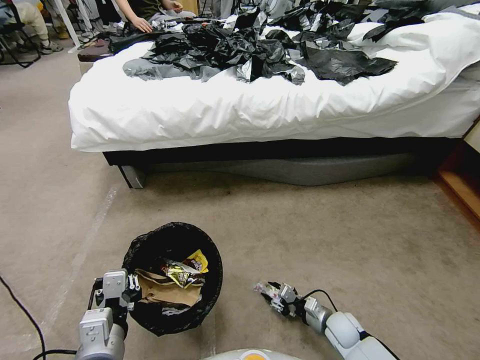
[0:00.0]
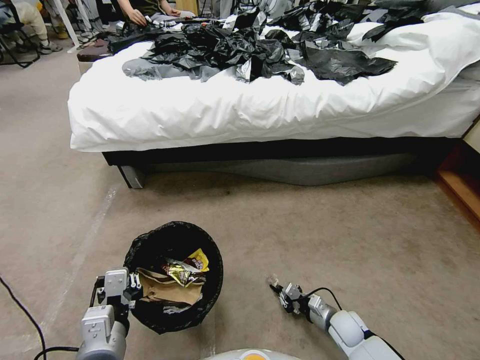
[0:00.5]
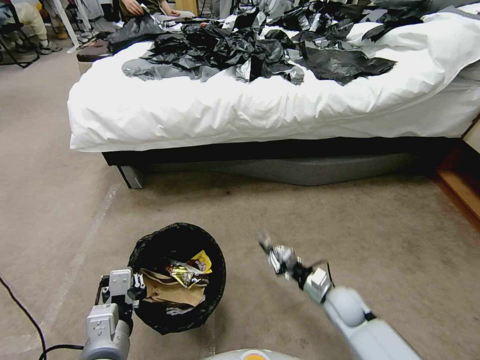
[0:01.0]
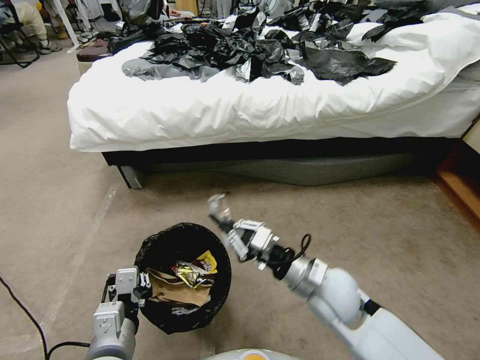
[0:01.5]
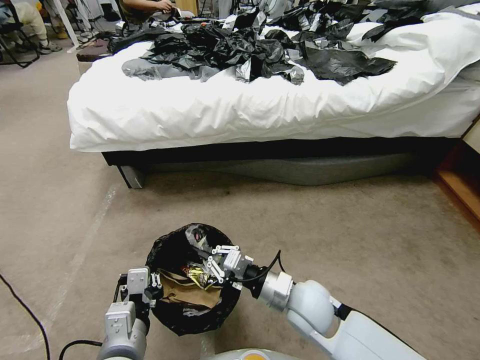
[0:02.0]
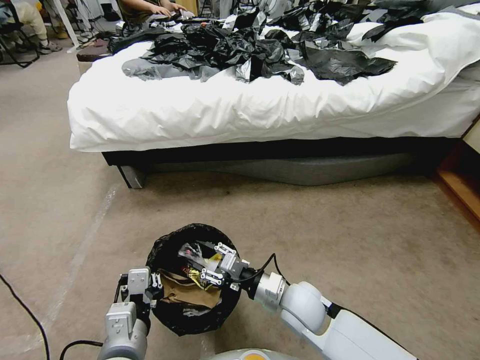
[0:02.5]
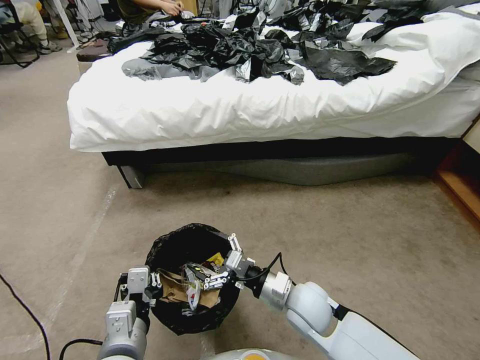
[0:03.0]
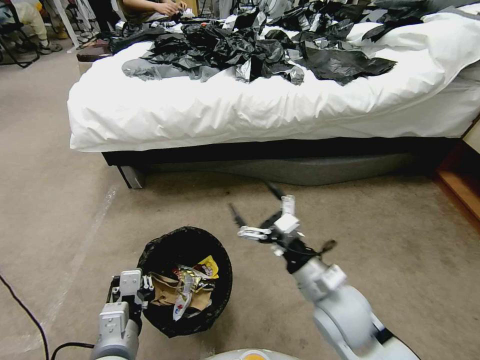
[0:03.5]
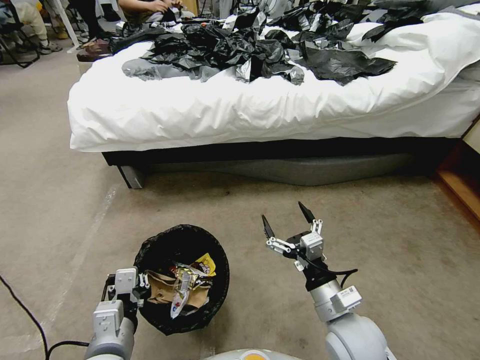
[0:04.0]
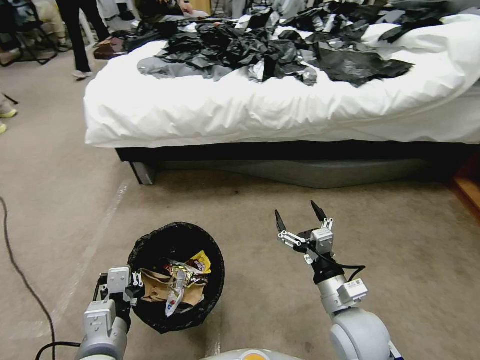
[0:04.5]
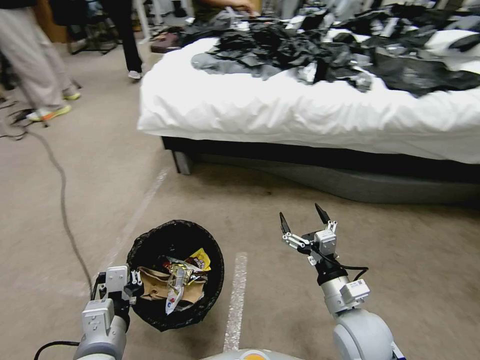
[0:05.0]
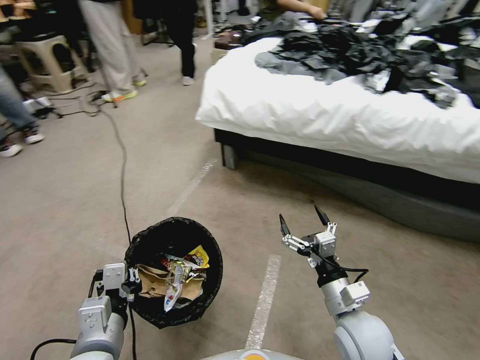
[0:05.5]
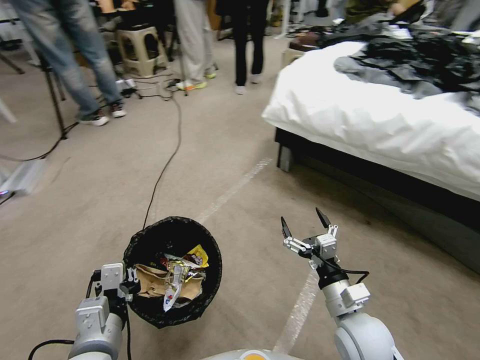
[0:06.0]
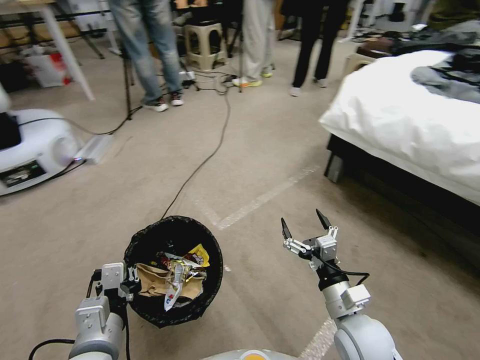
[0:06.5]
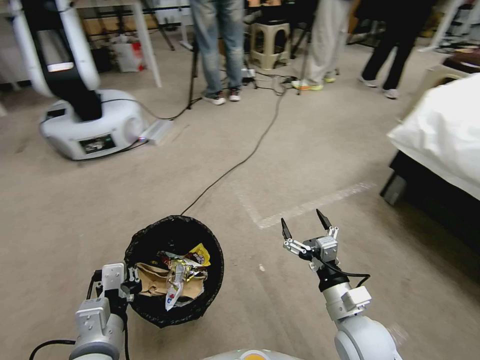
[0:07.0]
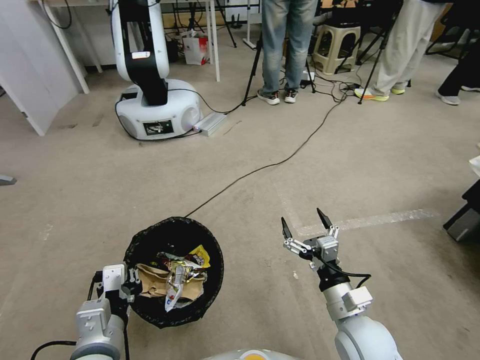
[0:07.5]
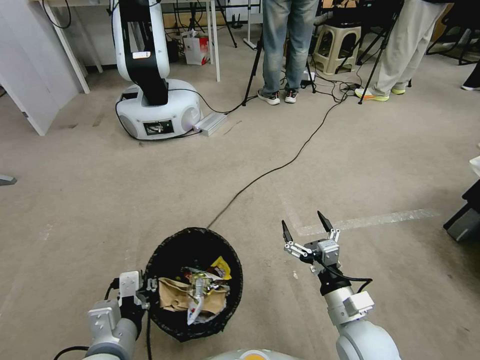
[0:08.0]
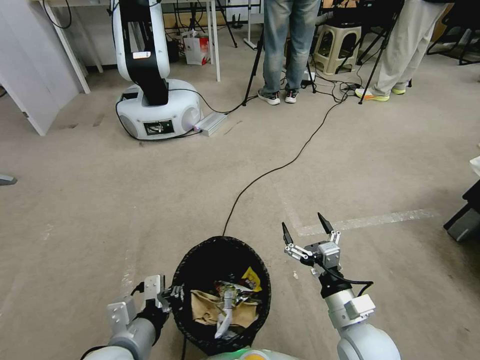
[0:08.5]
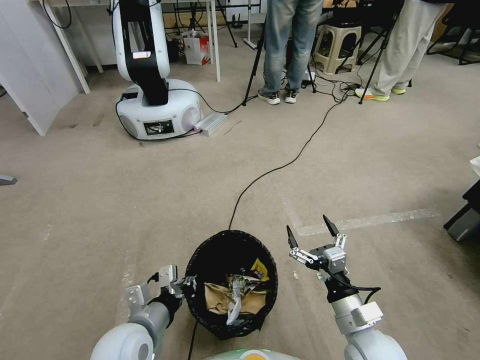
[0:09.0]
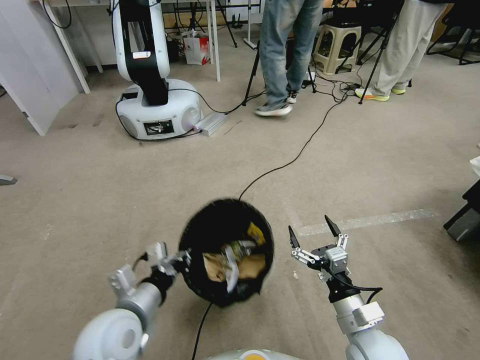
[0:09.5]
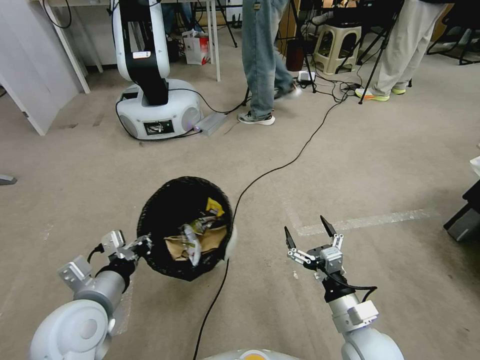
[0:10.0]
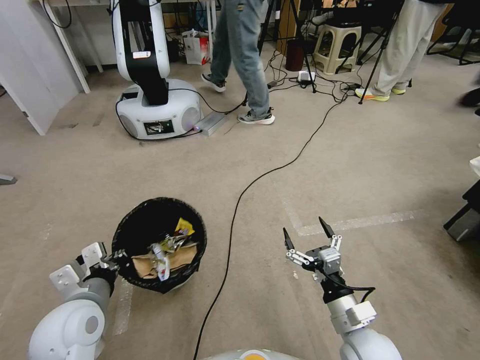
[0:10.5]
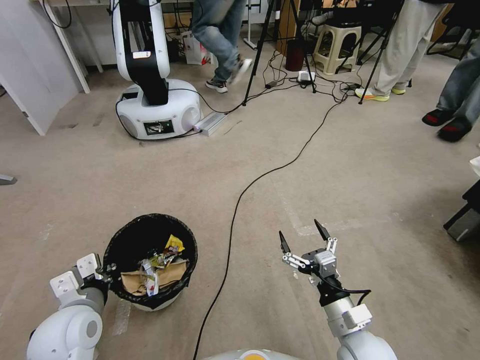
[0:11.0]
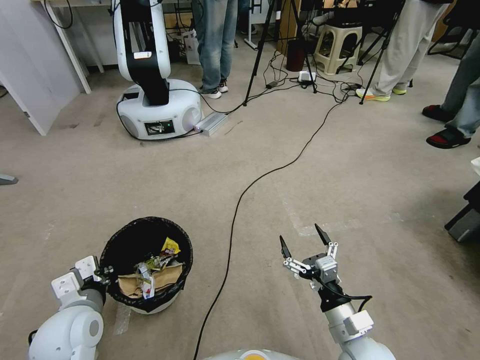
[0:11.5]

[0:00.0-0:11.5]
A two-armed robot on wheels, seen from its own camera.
Task of the whole recording: Pick up the trash bin, then pick up the garbage from the floor and place it into the trash bin.
0:00.0 to 0:02.0: The right gripper is displaced upward and to the left by some 25 cm, and closes up.
0:02.0 to 0:04.0: The right gripper travels to the right and backward by approximately 10 cm, and opens its fingers.
0:07.5 to 0:09.5: The left gripper shifts approximately 5 cm forward.
0:09.5 to 0:11.5: The left gripper moves to the left, approximately 10 cm.

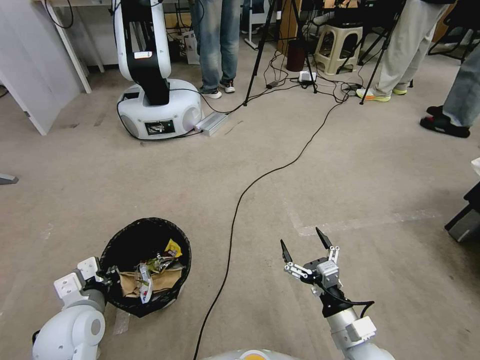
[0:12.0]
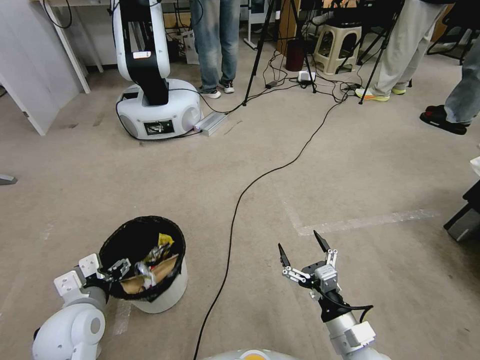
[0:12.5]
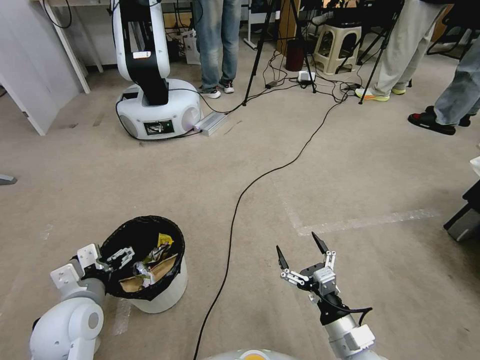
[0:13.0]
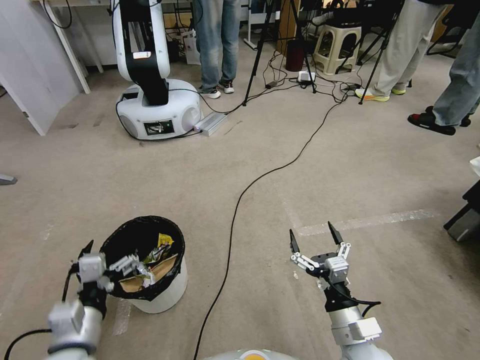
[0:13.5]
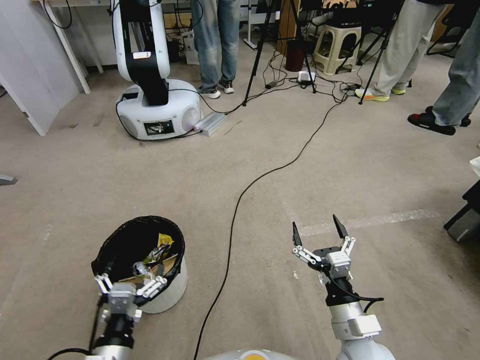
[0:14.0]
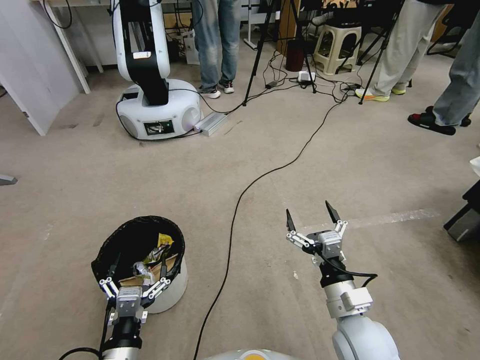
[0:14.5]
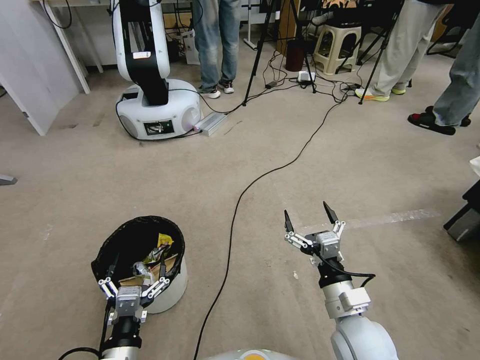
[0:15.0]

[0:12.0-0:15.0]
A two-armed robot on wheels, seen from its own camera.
Task of the whole recording: Pick up the trash bin, then pick up the garbage from the floor and place it into the trash bin.
0:12.0 to 0:13.5: The left gripper travels backward by roughly 5 cm, and opens up.
0:13.5 to 0:15.0: The right gripper ends up roughly 5 cm from where it was, while the left gripper goes approximately 10 cm to the right, downward and backward.
